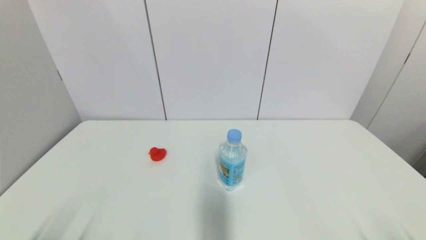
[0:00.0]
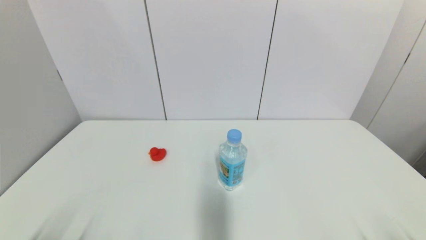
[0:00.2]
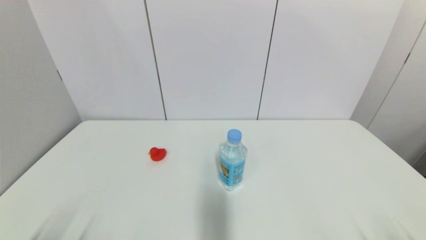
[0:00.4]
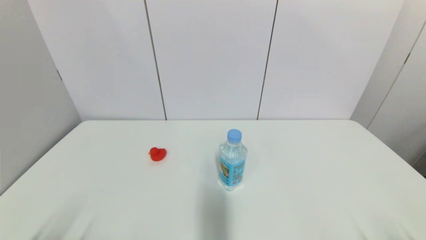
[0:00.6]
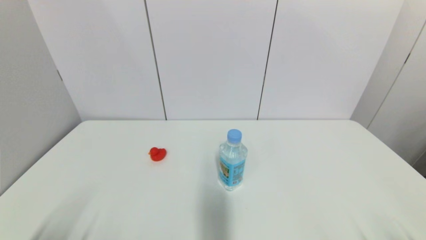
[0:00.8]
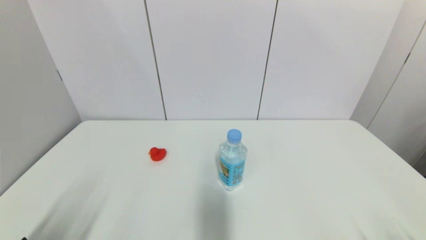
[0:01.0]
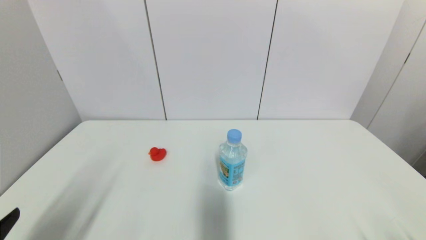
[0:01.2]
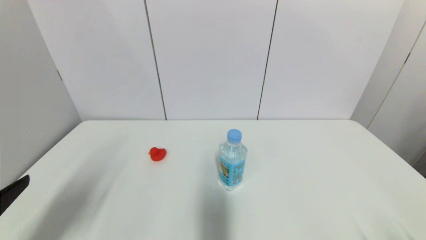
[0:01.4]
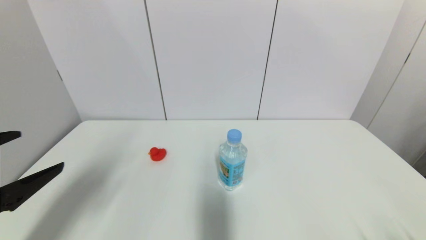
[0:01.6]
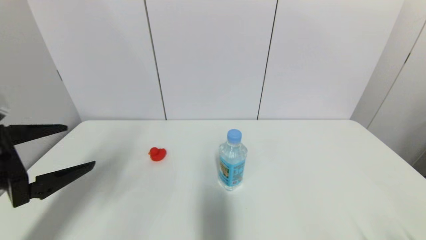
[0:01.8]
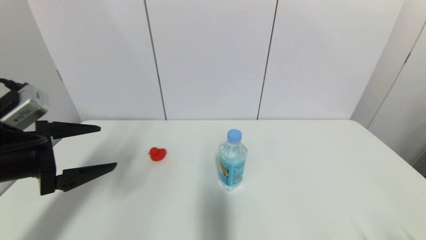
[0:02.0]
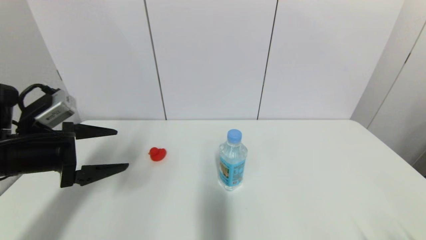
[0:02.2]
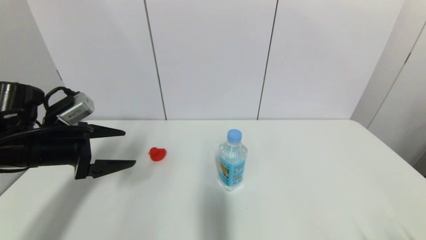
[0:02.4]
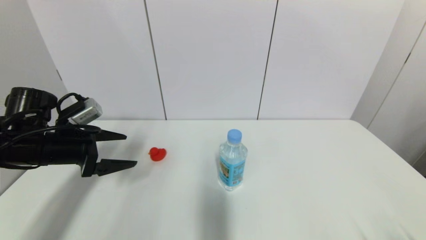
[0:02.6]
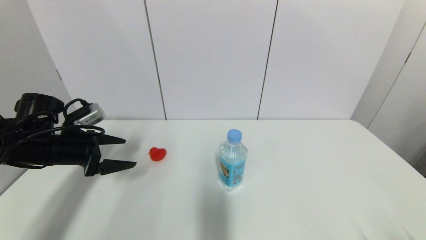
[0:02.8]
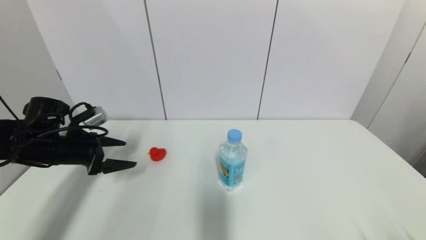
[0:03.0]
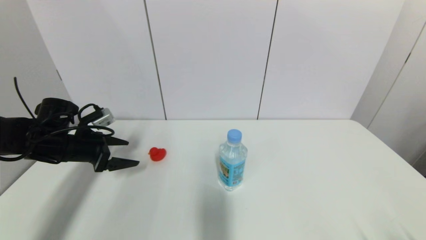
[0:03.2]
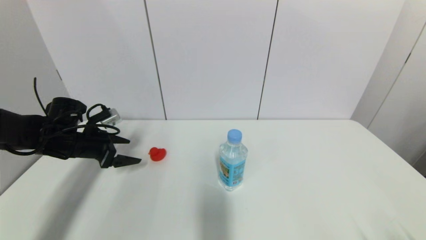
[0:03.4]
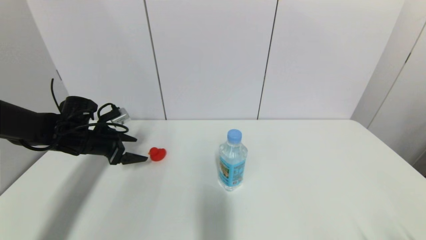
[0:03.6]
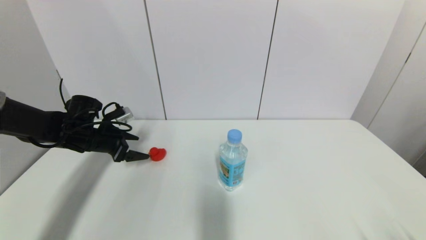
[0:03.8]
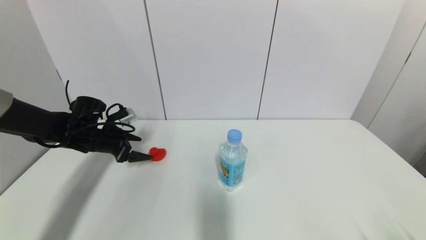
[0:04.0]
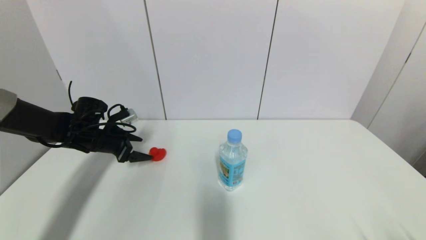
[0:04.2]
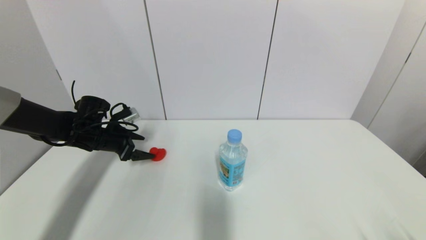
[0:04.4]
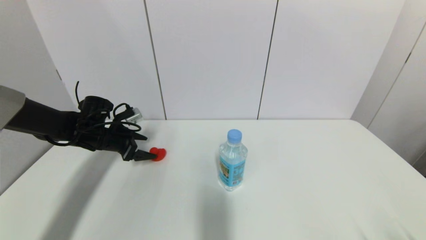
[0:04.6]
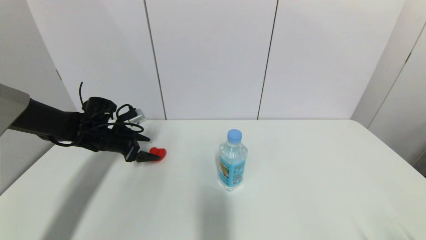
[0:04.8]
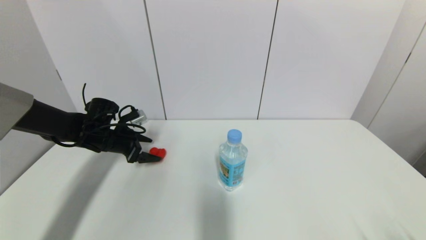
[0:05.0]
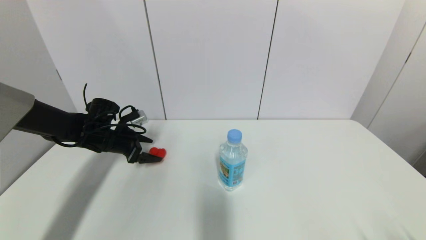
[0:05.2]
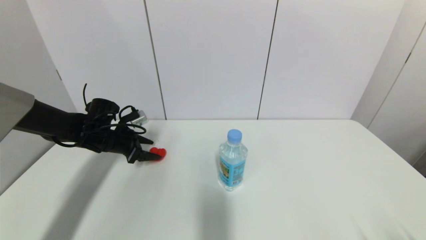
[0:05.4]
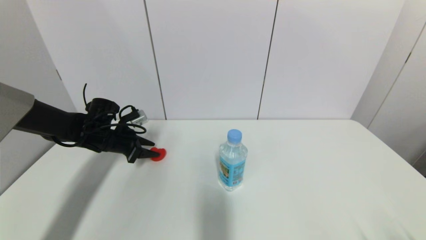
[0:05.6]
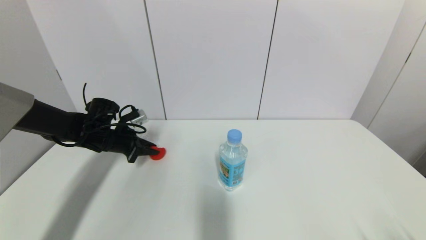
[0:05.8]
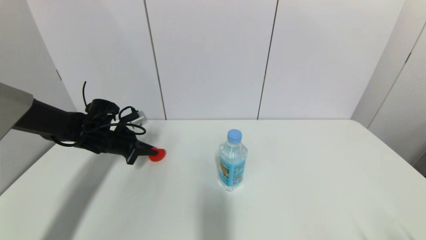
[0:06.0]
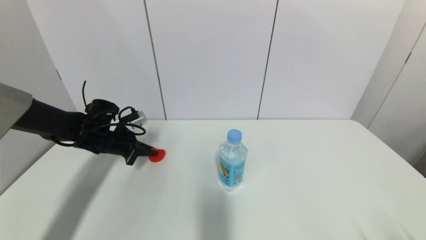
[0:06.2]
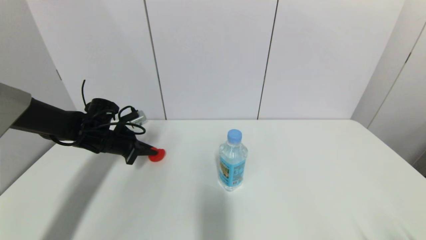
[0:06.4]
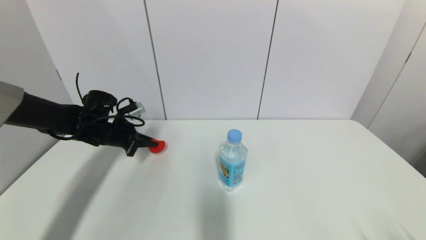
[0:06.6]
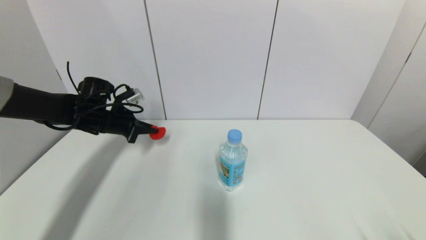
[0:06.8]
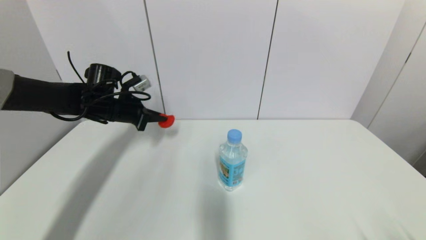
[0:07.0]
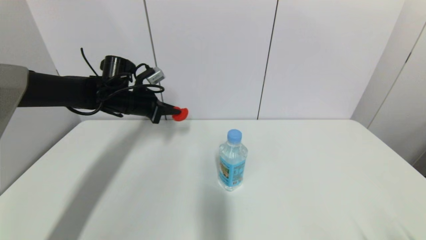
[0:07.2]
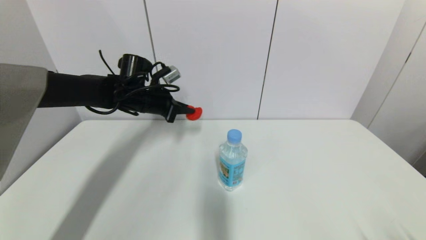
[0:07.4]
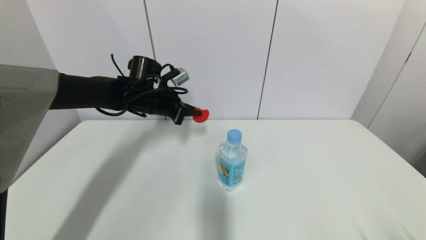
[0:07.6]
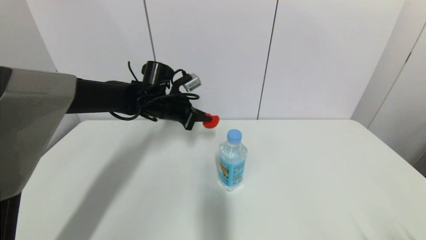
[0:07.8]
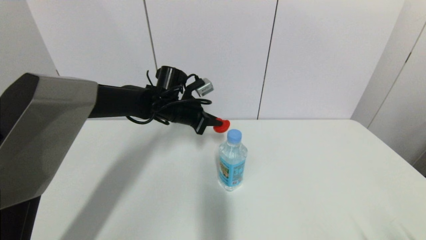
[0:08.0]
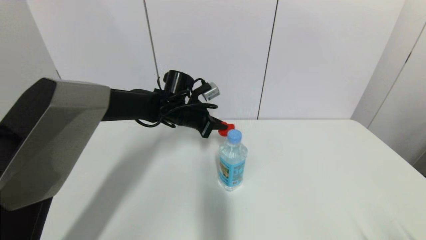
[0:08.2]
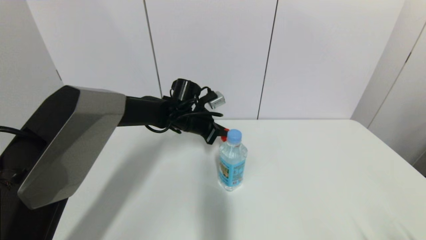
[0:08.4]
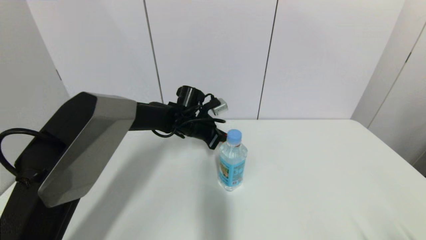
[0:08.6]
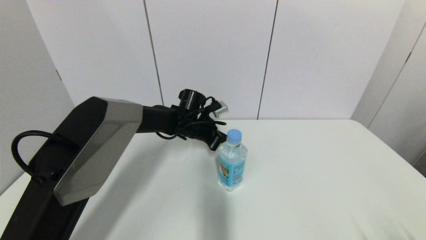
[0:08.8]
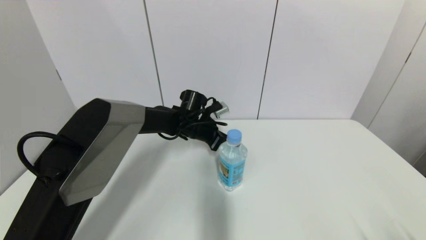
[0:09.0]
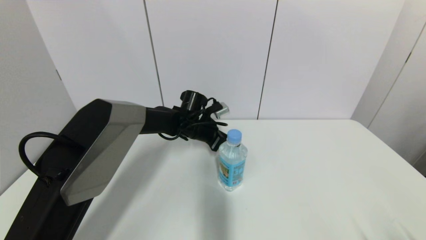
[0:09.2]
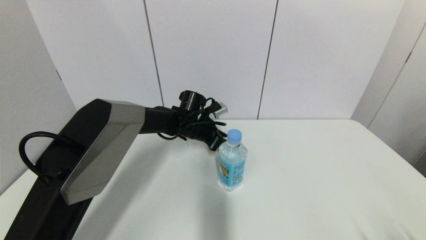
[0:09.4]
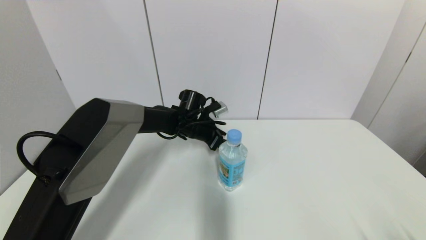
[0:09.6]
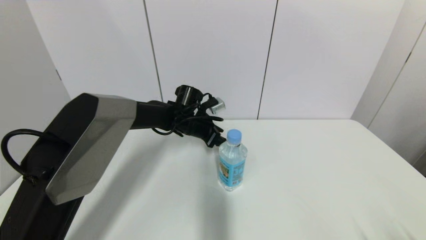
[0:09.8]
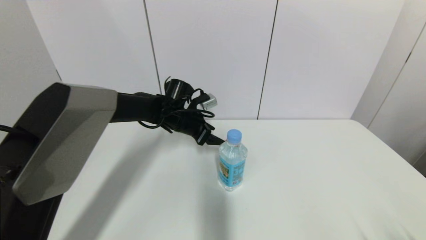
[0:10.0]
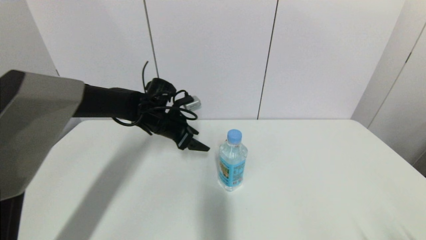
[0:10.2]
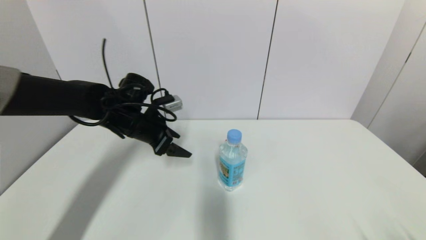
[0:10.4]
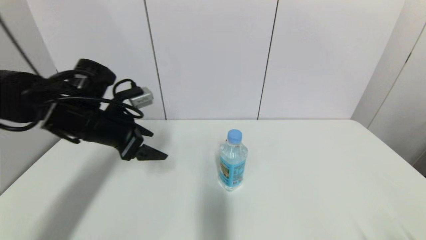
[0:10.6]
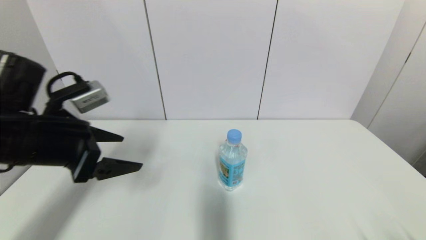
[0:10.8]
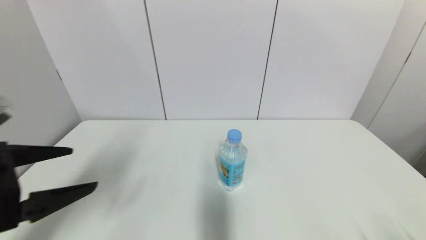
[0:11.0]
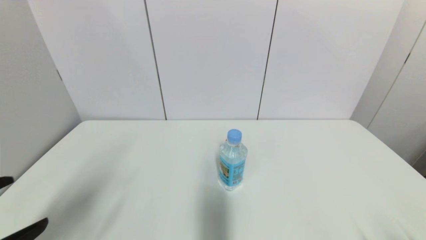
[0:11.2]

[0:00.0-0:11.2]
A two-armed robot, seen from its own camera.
Step, 0:01.0 to 0:06.6: Grasp the red duck with left gripper.
Step, 0:06.8 to 0:09.4: Place the red duck on the table with left gripper.
0:00.0 to 0:01.6: The left gripper travels upward and forward by about 20 cm.
0:01.6 to 0:03.2: The left gripper heads forward and downward, covering about 25 cm.
0:03.2 to 0:04.8: The left gripper goes some 5 cm forward.
0:04.8 to 0:06.4: The left gripper closes.
0:06.4 to 0:08.0: The left gripper heads to the right, covering some 20 cm.
0:08.0 to 0:09.6: The left gripper is displaced downward by approximately 5 cm, and opens up.
0:09.6 to 0:11.2: The left gripper is displaced backward and to the left by approximately 50 cm.

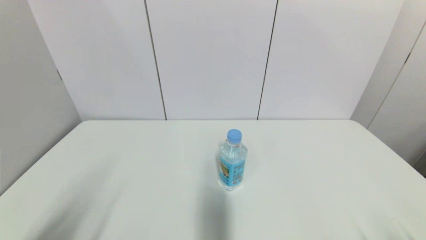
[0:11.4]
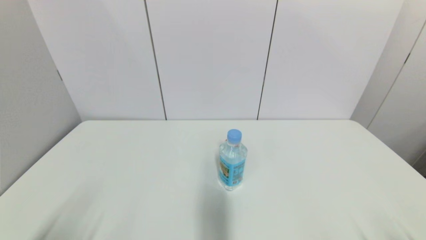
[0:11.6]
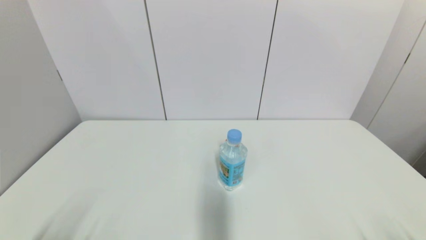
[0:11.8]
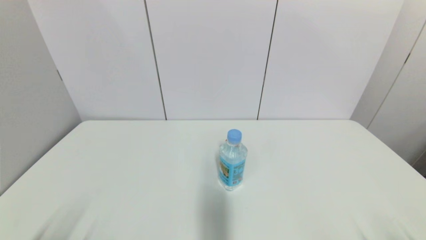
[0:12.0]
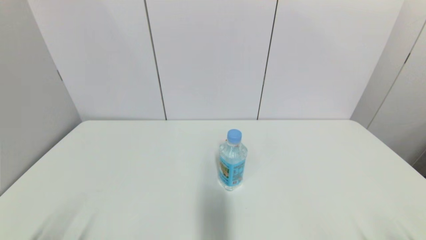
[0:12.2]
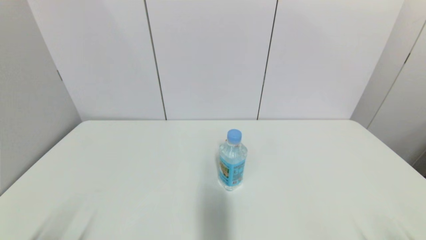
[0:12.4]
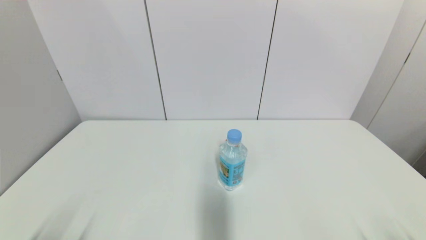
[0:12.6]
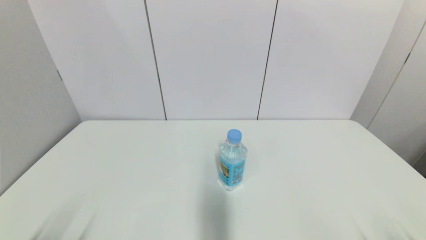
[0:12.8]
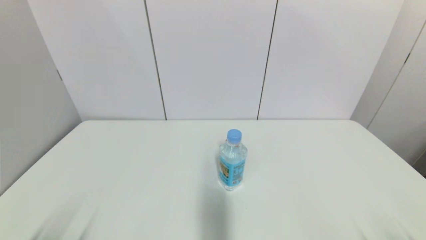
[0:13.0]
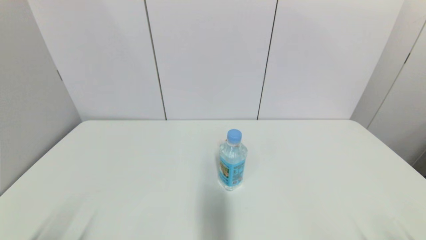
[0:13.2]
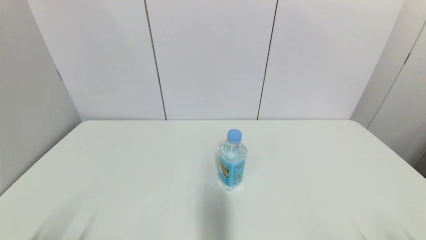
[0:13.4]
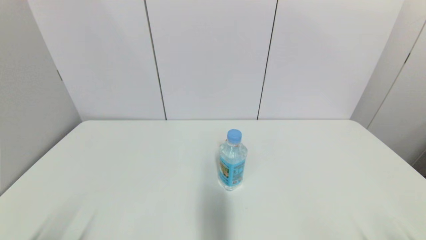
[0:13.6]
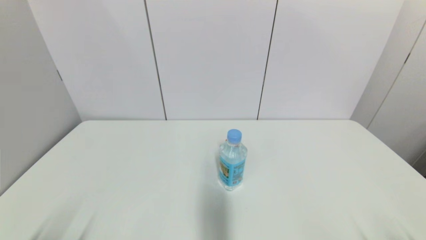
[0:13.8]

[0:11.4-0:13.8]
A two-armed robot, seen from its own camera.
0:11.4 to 0:12.6: The left gripper shifts some 10 cm downward.
0:12.6 to 0:13.8: The two grippers keep their place.
